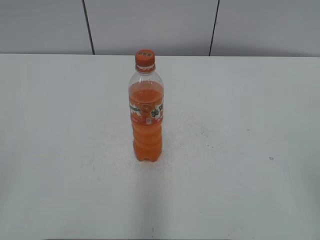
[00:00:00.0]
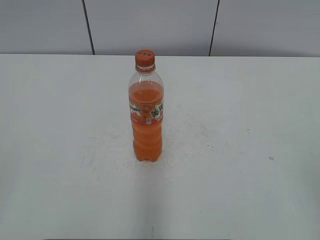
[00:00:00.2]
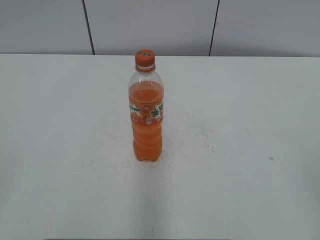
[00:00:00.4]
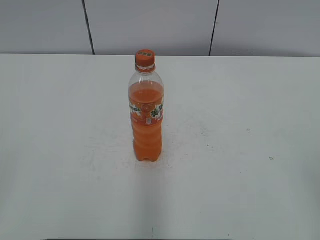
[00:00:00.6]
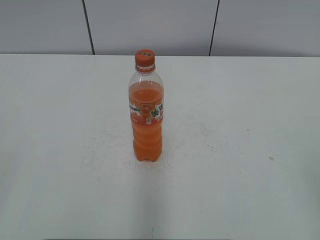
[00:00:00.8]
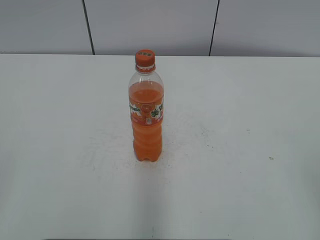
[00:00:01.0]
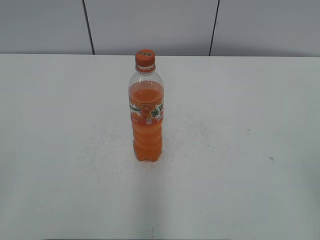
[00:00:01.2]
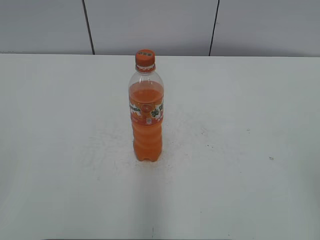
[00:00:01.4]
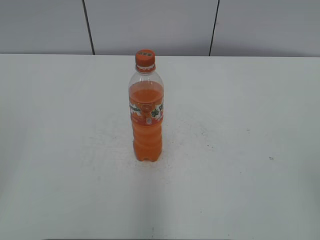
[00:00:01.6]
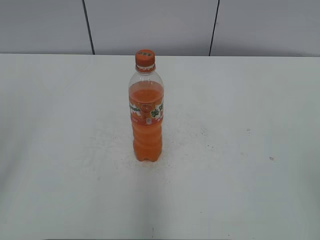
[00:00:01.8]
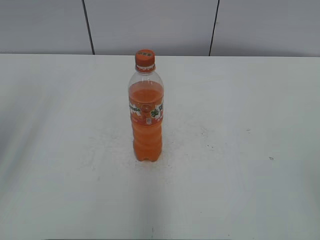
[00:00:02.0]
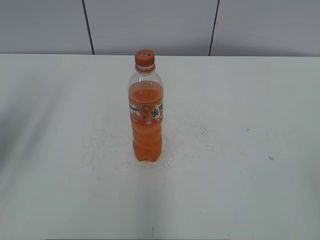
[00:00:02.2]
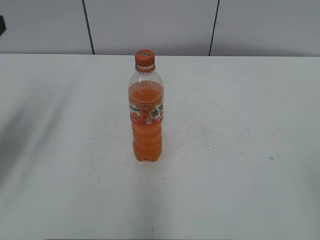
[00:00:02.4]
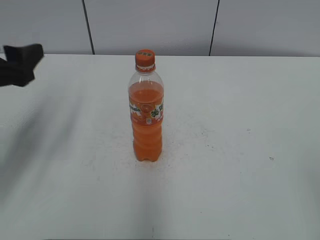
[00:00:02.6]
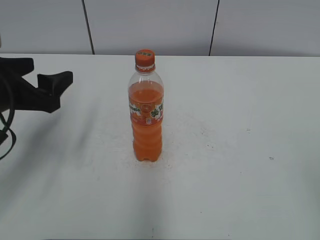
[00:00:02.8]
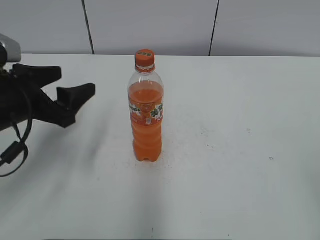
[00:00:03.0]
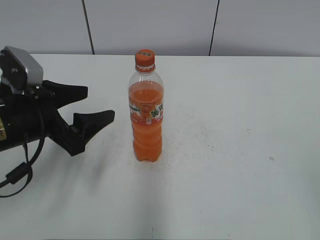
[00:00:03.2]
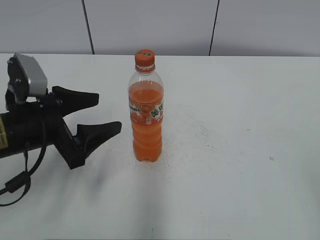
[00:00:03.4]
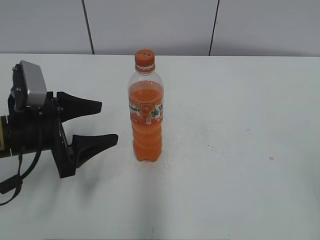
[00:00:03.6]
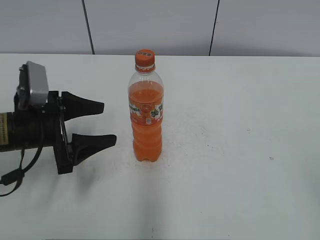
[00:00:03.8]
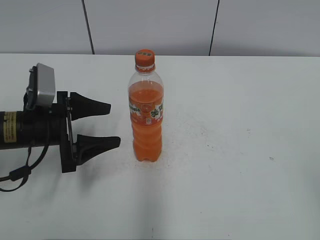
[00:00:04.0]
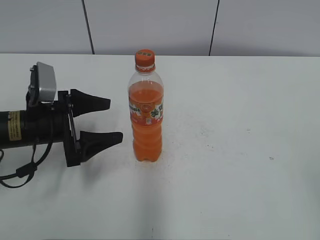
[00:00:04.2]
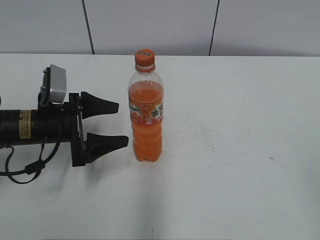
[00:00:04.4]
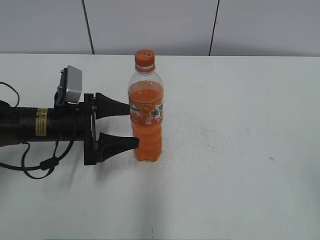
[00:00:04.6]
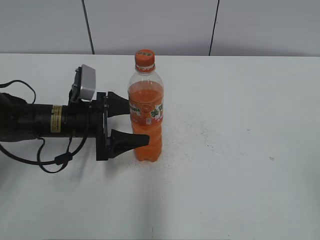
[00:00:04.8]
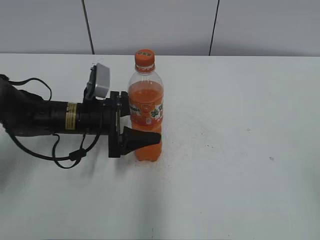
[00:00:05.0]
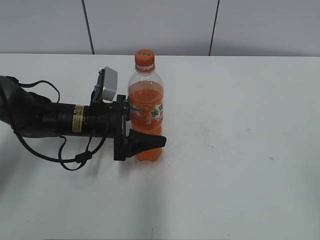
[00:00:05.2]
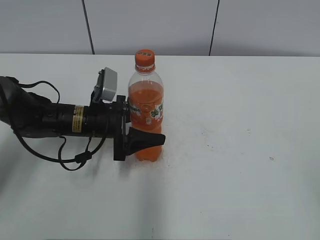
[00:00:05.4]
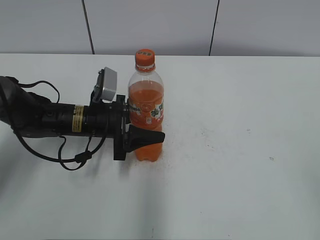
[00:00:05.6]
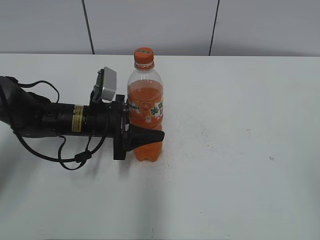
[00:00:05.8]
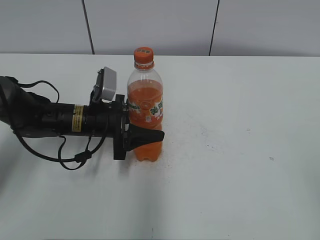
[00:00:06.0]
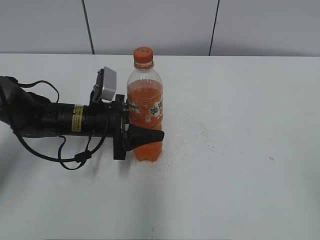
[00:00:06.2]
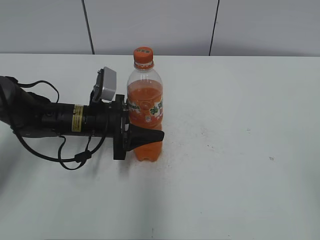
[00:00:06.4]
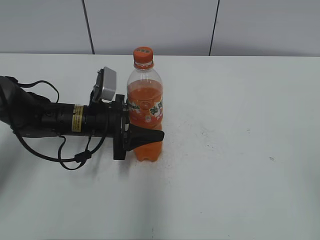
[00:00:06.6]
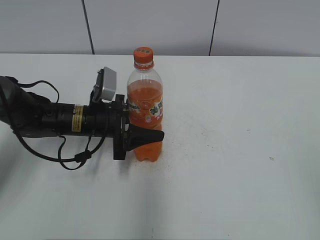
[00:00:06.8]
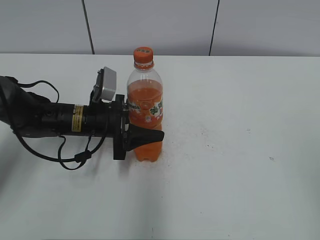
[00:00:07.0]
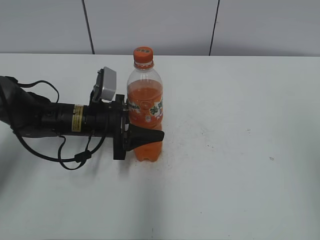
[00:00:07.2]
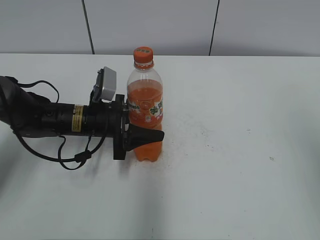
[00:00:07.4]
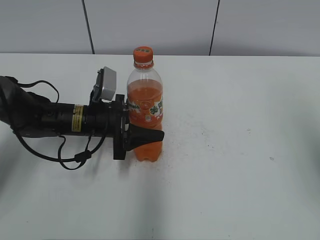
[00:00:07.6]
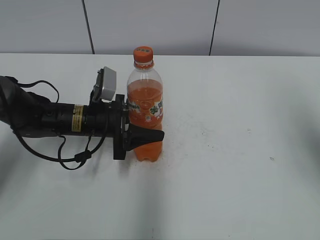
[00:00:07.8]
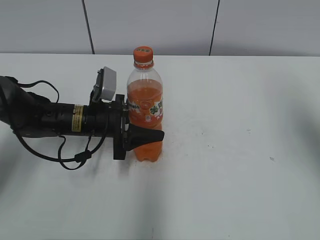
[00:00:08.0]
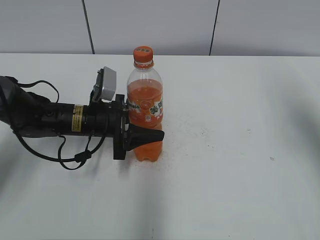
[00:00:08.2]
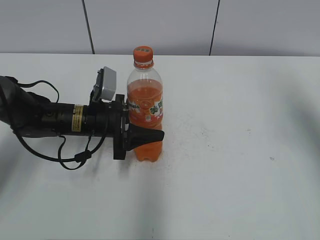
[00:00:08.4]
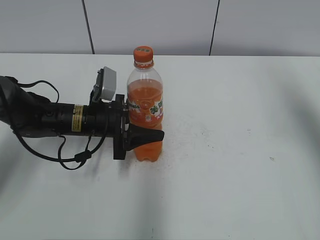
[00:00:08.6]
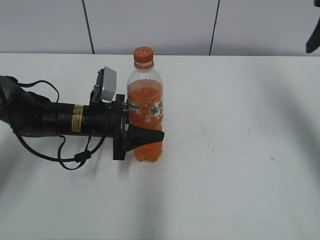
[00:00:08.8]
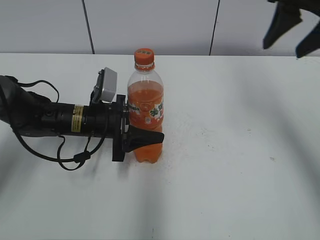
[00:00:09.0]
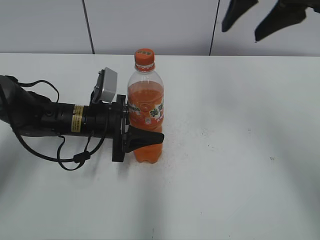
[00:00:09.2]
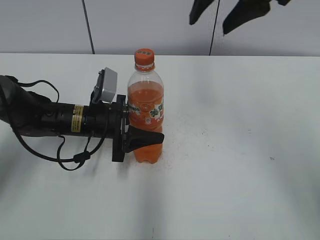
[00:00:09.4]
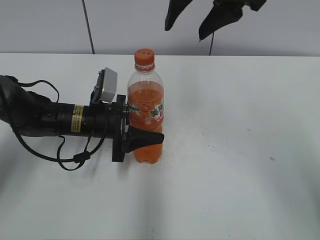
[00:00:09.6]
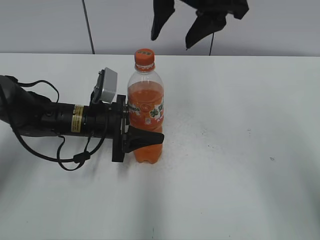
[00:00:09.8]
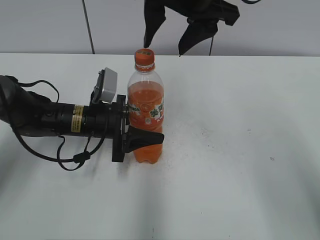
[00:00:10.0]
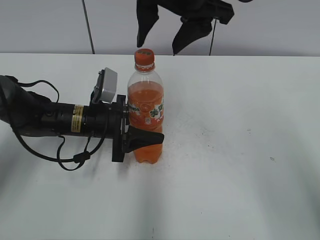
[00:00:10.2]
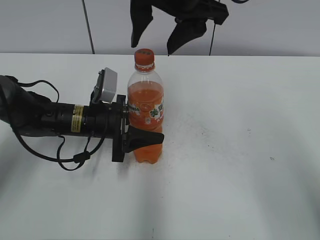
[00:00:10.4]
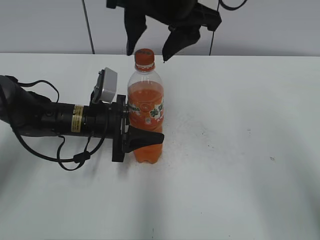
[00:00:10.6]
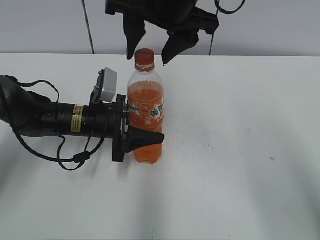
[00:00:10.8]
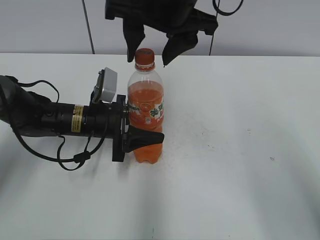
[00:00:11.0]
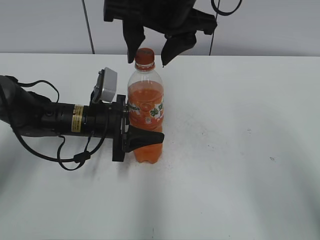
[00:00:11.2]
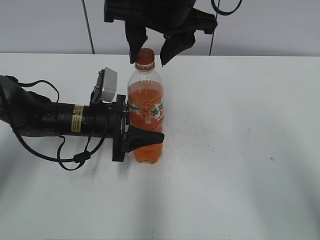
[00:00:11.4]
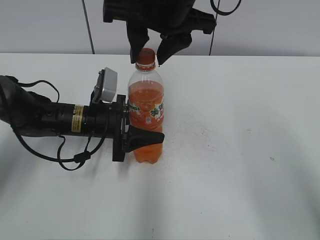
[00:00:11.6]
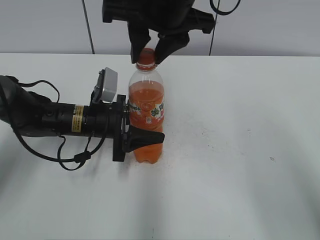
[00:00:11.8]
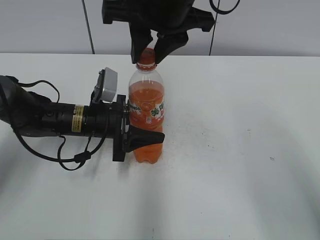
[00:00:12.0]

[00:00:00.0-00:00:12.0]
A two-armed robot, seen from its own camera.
Step, 00:00:00.0 to 00:00:06.0: Grab the Mirinda with the left hand.
00:00:01.6 to 00:00:03.0: The left gripper moves forward, downward and to the right, approximately 30 cm.
00:00:03.0 to 00:00:04.4: The left gripper moves downward, roughly 10 cm.
00:00:04.4 to 00:00:06.0: The left gripper travels to the right by approximately 5 cm, and closes its fingers.
00:00:06.0 to 00:00:07.6: The right gripper heads forward and upward, covering about 15 cm.
00:00:07.6 to 00:00:09.0: The right gripper is displaced forward and to the left by about 20 cm.
00:00:09.0 to 00:00:10.4: The right gripper heads to the left, covering some 20 cm.
00:00:10.4 to 00:00:12.0: The right gripper closes.

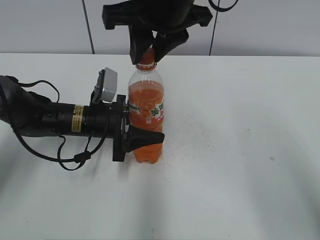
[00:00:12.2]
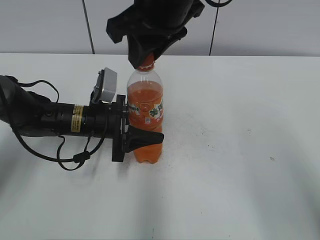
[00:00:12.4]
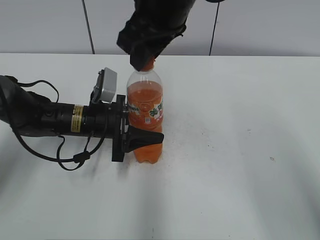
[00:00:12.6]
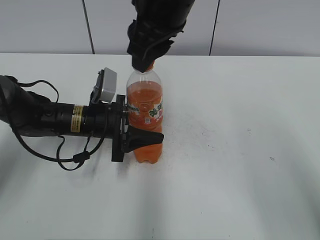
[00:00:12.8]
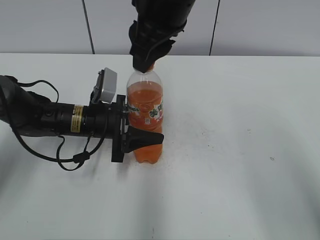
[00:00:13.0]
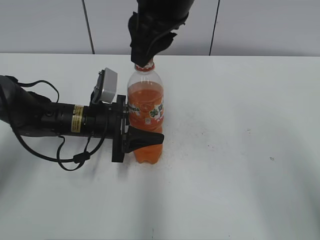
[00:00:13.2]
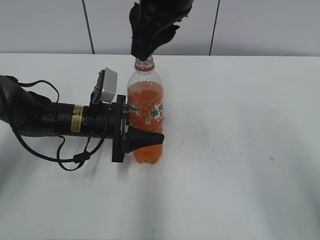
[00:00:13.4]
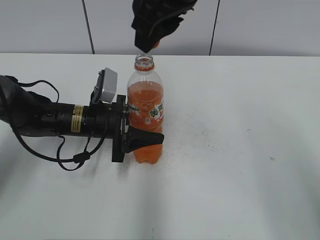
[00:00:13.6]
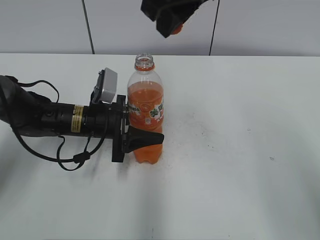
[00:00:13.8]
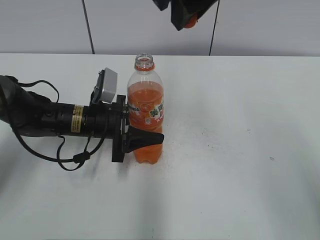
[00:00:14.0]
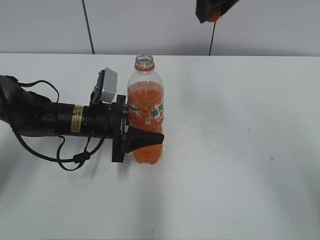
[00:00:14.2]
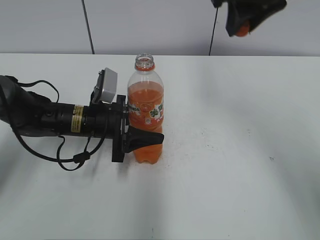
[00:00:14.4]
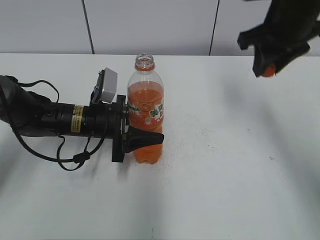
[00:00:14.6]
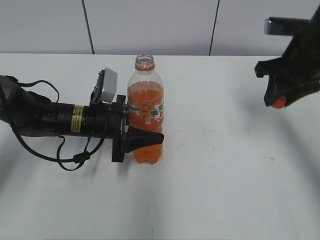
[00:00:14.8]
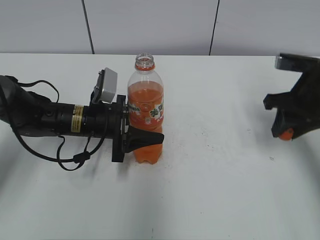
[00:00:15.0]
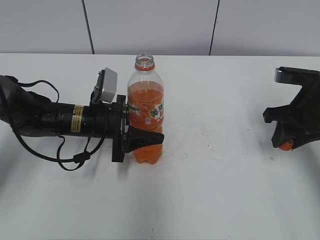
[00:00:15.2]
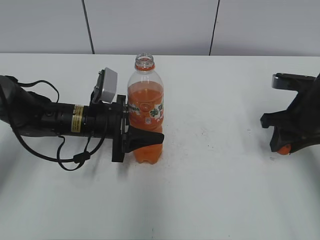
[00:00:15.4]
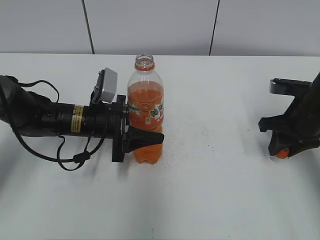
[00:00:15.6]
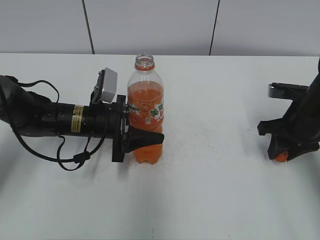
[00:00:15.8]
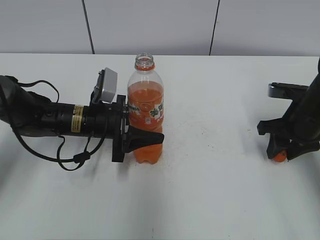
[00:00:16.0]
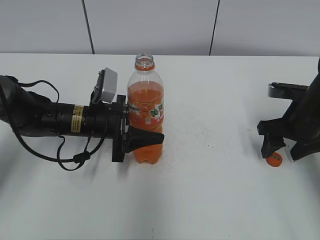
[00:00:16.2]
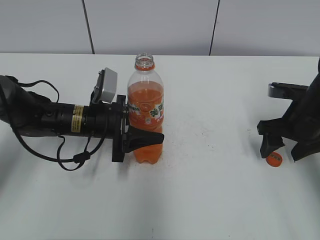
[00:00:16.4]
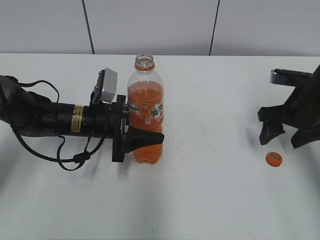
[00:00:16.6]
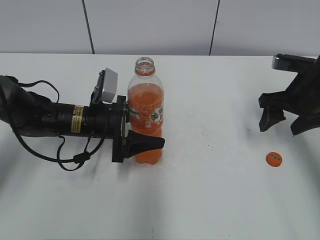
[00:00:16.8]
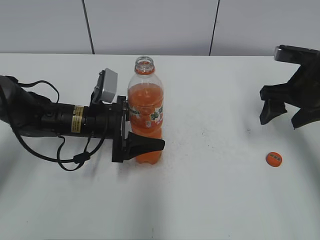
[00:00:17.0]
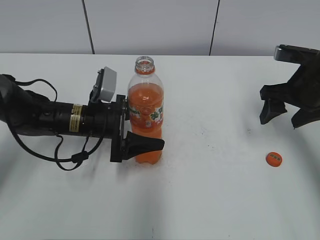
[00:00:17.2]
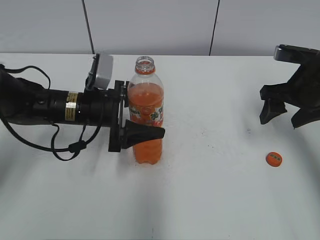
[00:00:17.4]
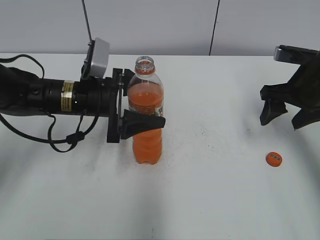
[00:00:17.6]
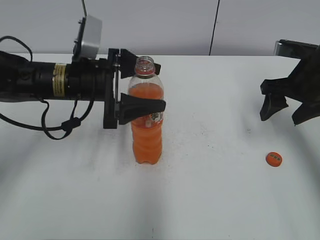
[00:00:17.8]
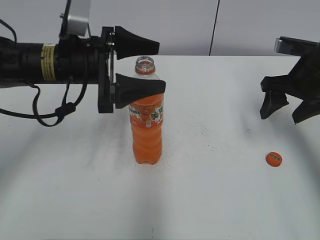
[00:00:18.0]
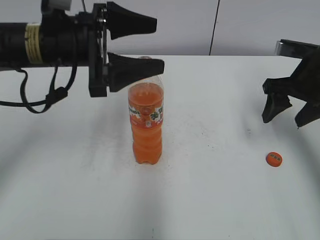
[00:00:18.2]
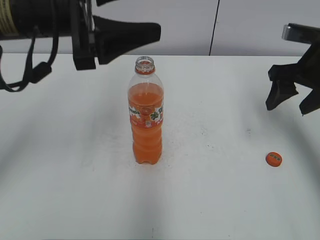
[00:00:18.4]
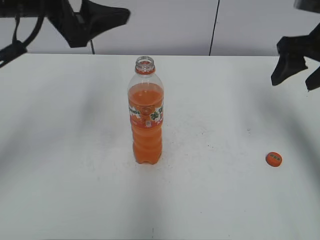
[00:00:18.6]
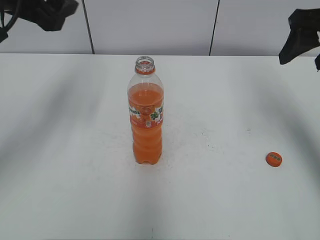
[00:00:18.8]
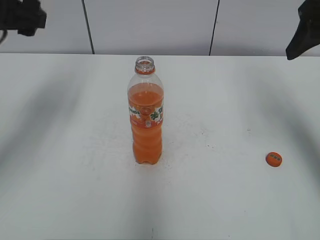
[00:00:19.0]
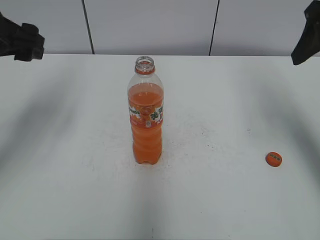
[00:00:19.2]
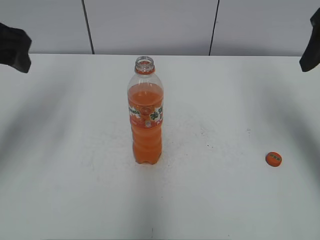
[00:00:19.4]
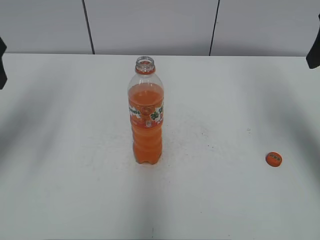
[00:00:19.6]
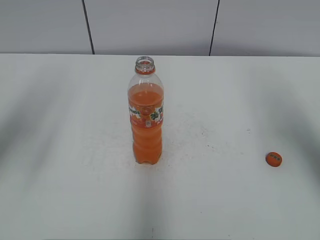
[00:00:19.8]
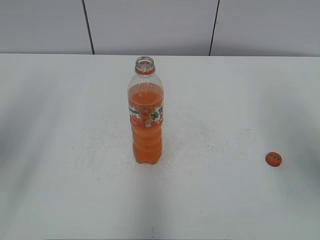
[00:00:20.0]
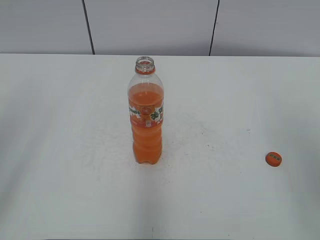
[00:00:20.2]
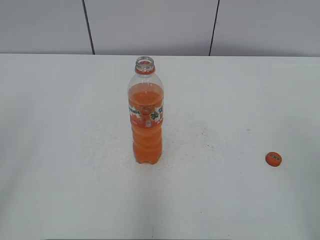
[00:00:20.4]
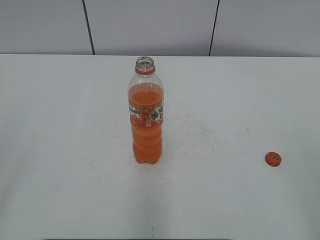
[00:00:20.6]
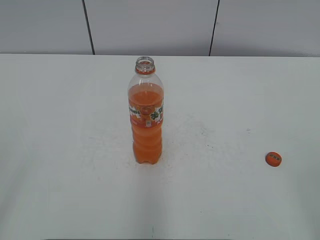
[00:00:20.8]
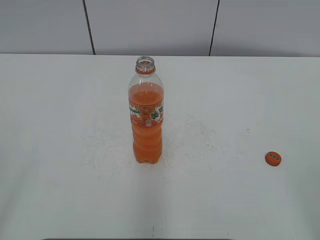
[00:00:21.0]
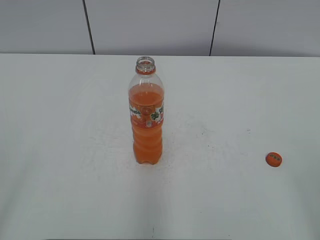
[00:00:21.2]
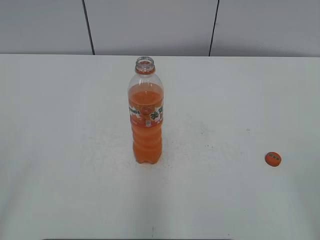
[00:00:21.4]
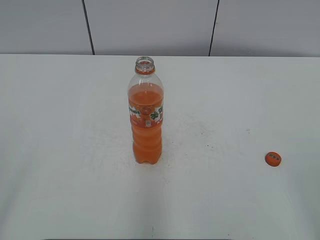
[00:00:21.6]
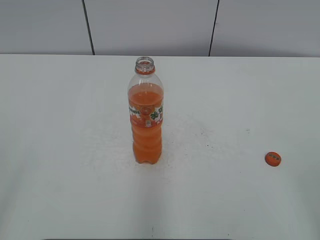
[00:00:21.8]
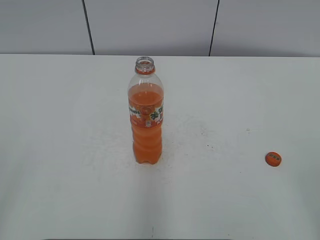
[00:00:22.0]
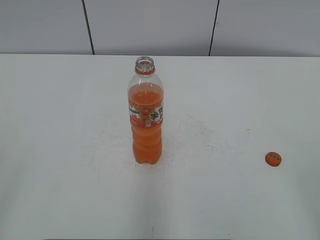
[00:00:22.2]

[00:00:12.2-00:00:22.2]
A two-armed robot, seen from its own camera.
Step, 00:00:13.6 to 00:00:16.0: Place the bottle cap on the right.
00:00:13.6 to 00:00:15.0: The right gripper travels to the right and downward by roughly 30 cm.
00:00:15.0 to 00:00:16.4: The right gripper goes about 5 cm downward, and opens.
00:00:16.4 to 00:00:18.0: The left gripper travels upward by some 10 cm, and opens; the right gripper heads upward, covering approximately 5 cm.
00:00:18.0 to 00:00:19.4: The right gripper moves upward, about 15 cm. Meanwhile the left gripper travels to the left and upward by roughly 15 cm.
00:00:19.4 to 00:00:20.8: Both grippers travel together backward, some 30 cm.
